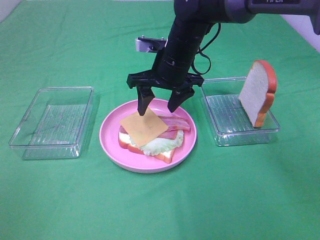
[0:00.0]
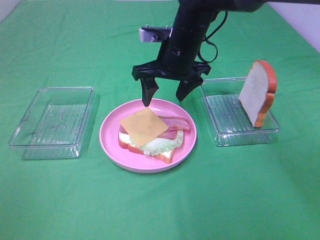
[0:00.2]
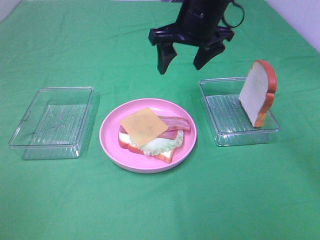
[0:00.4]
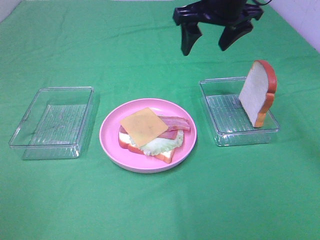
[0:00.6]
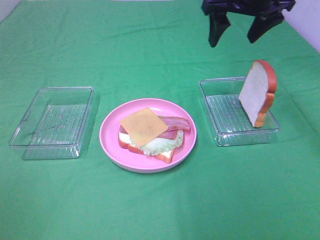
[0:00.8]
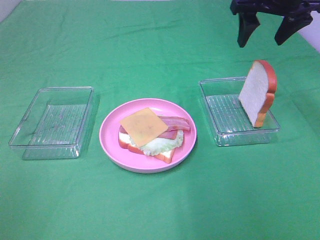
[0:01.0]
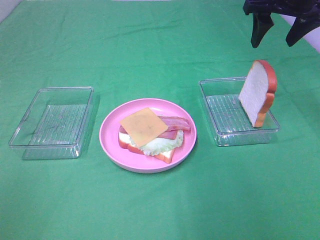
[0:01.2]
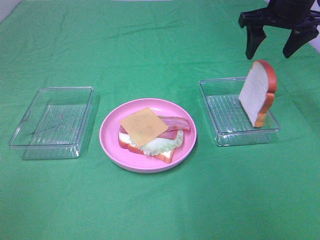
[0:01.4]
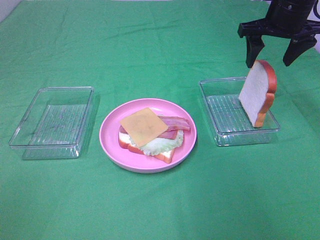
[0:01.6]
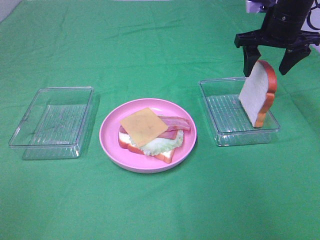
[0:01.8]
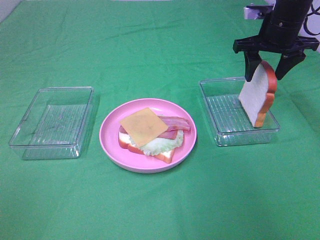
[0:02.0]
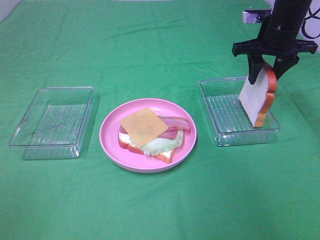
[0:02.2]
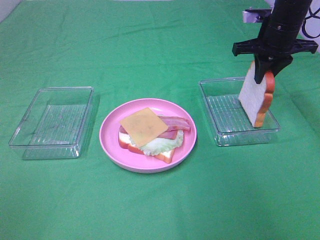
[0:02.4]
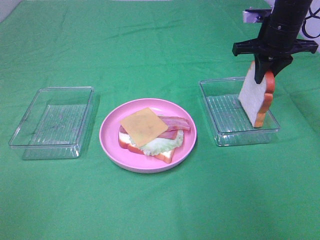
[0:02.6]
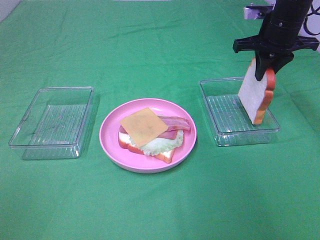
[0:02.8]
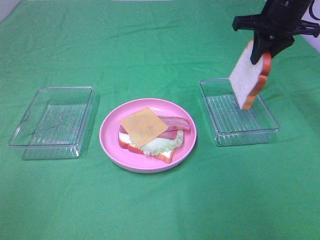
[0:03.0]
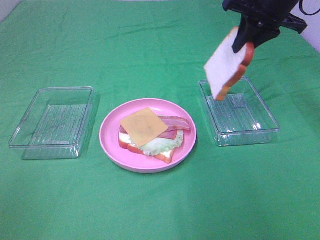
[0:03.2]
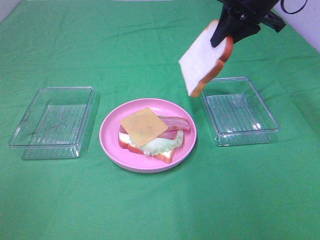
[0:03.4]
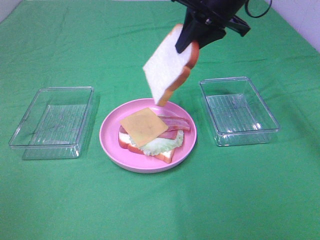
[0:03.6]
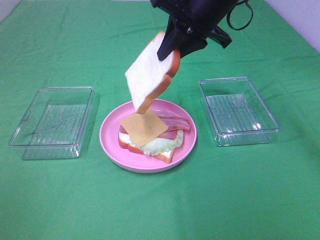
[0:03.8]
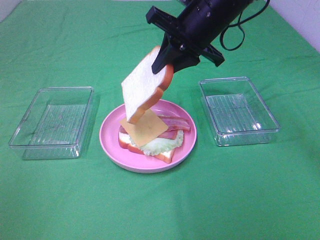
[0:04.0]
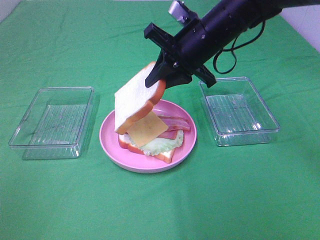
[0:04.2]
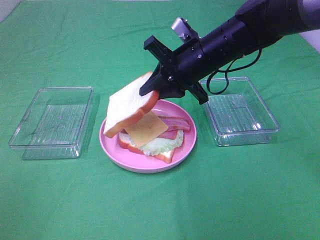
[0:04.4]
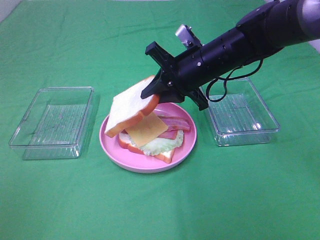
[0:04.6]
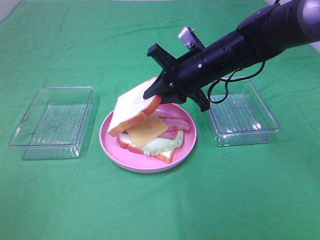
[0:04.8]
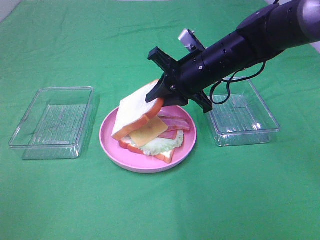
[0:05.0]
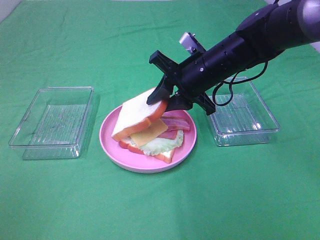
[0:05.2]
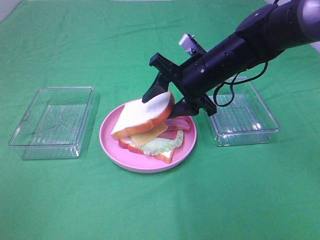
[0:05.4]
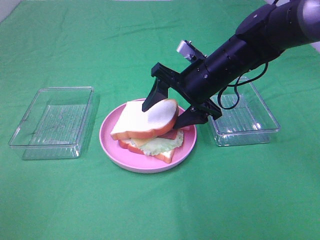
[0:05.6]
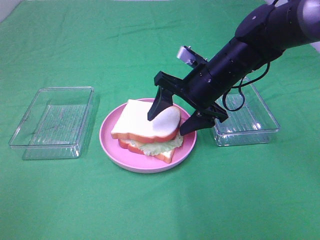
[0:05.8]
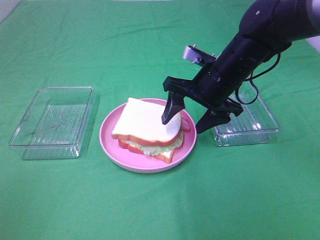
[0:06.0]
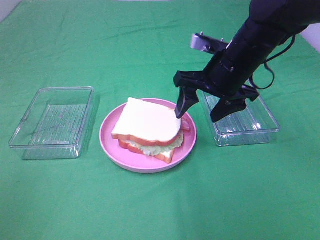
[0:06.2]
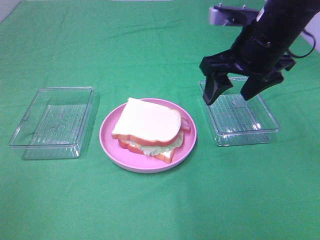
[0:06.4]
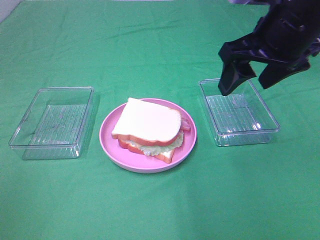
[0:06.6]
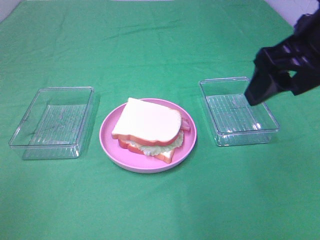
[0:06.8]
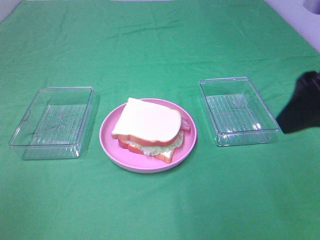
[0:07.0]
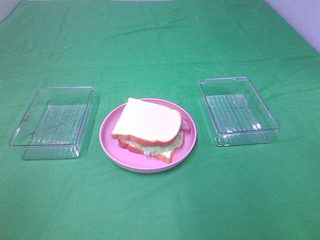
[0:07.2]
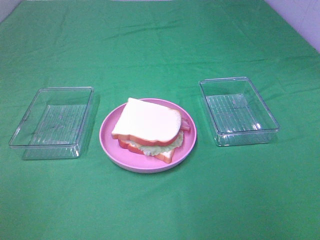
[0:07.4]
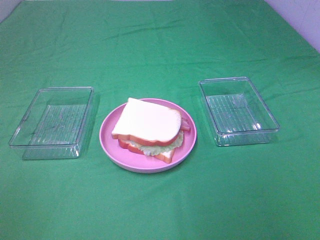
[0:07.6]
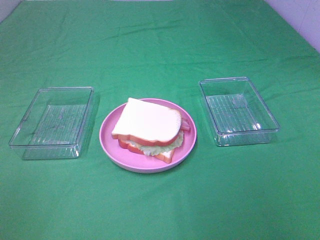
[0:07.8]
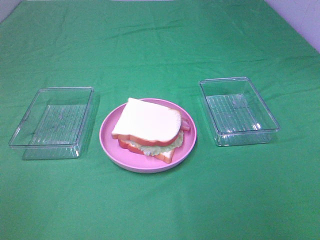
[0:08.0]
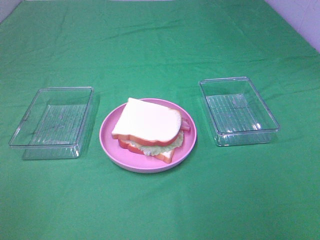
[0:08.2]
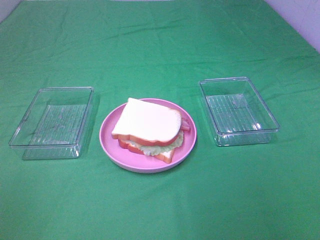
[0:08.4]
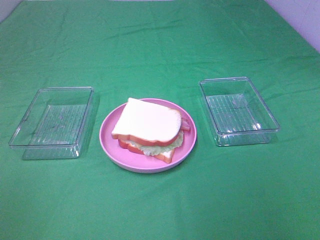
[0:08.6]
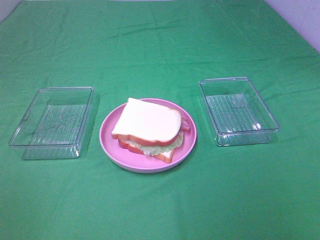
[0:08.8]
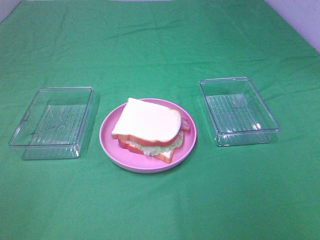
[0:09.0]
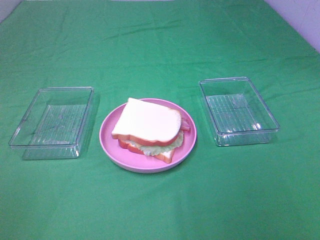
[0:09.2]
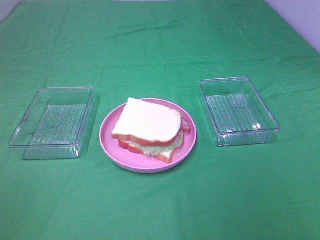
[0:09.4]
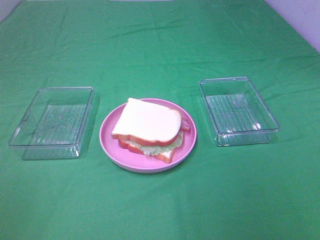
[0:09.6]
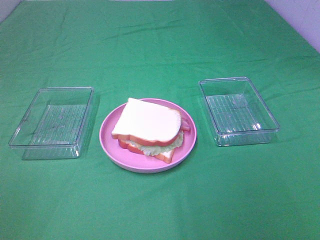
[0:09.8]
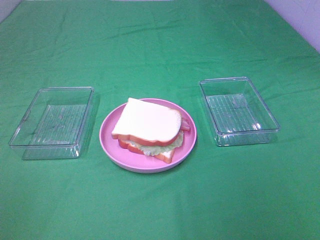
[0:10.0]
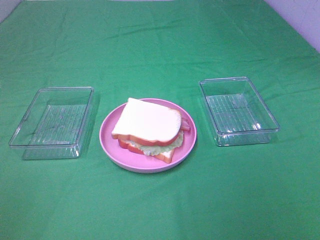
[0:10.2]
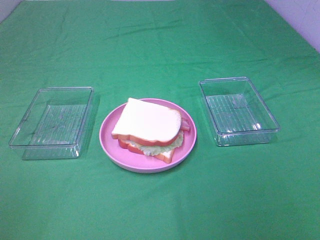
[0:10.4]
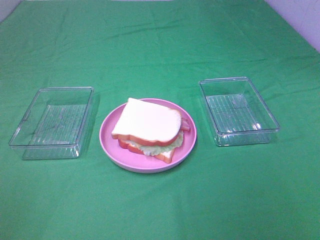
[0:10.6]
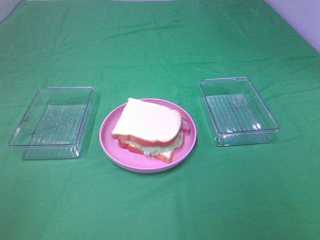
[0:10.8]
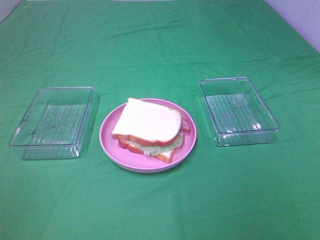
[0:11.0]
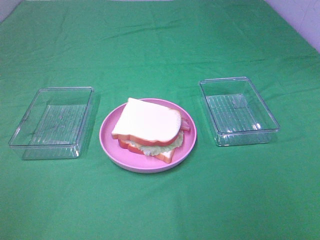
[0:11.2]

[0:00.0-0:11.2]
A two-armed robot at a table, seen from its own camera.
Task of the whole recording: Make sandwiches.
Step, 0:00.2 to 0:03.0: Right hand:grab the bread slice.
Step, 0:03.2 to 0:06.0: Right hand:place the bread slice on the cheese slice.
0:00.0 to 0:01.6: The right gripper is displaced to the right and upward by some 20 cm.
0:01.6 to 0:03.2: The right gripper closes up.
0:03.2 to 0:04.8: The right gripper is displaced downward, to the left and backward by roughly 15 cm.
0:04.8 to 0:06.4: The right gripper moves upward, to the right and backward, about 10 cm, and opens its fingers.
0:06.4 to 0:08.0: The right gripper shifts some 35 cm backward and to the right.

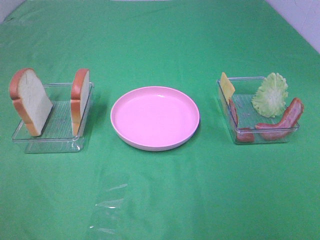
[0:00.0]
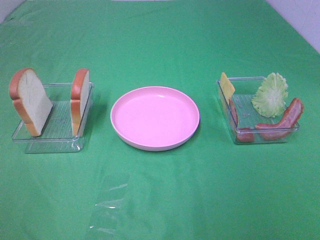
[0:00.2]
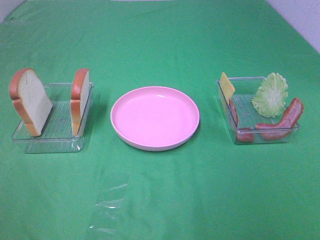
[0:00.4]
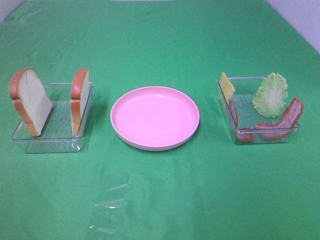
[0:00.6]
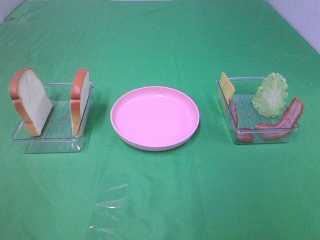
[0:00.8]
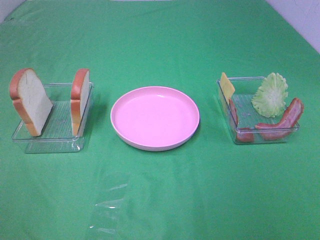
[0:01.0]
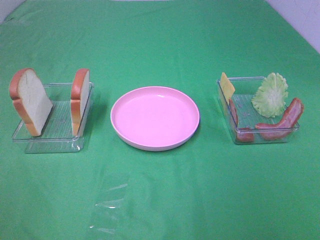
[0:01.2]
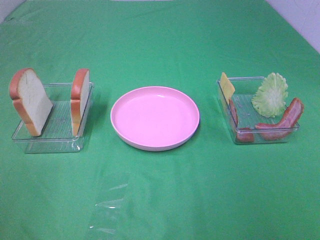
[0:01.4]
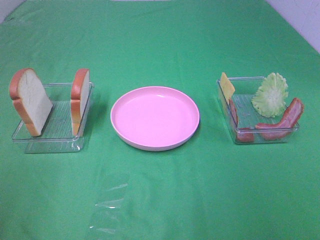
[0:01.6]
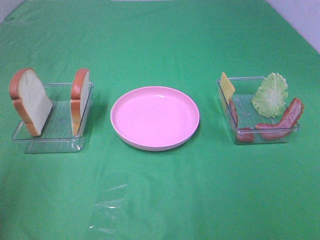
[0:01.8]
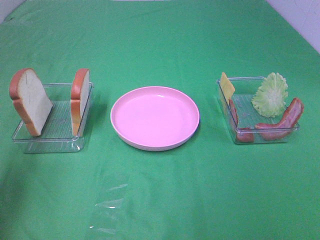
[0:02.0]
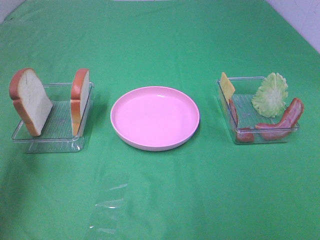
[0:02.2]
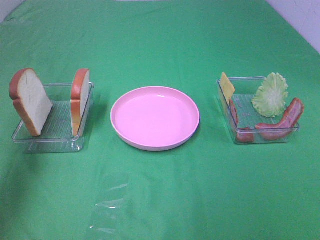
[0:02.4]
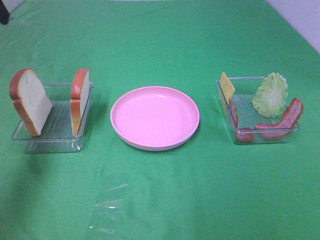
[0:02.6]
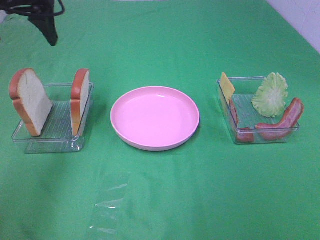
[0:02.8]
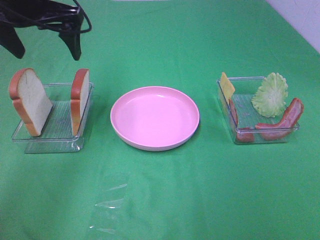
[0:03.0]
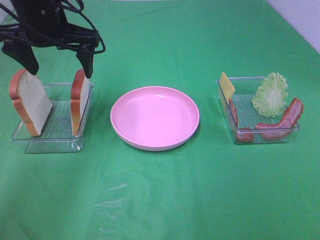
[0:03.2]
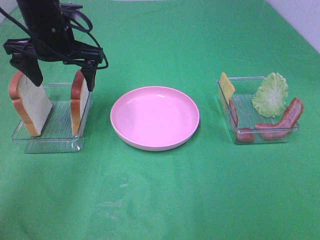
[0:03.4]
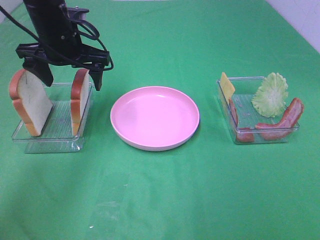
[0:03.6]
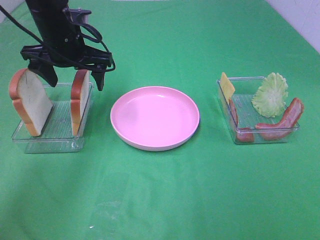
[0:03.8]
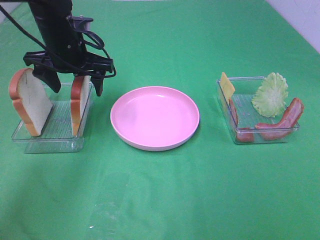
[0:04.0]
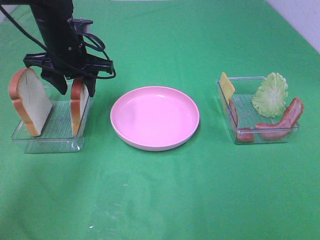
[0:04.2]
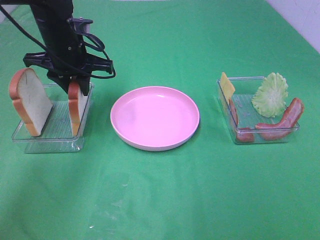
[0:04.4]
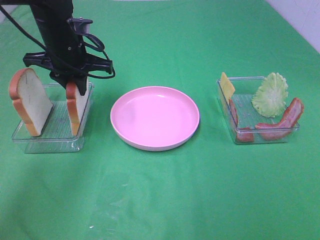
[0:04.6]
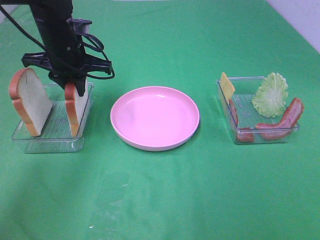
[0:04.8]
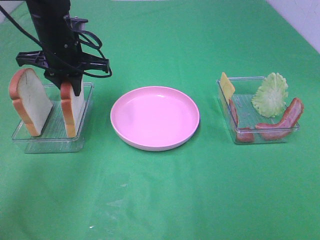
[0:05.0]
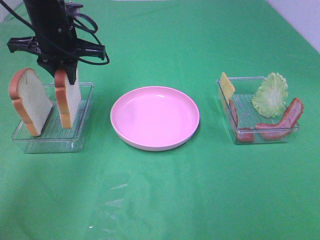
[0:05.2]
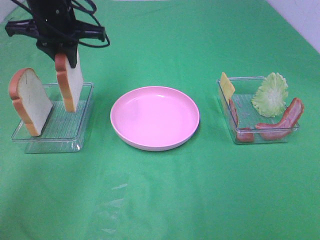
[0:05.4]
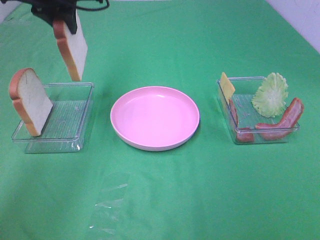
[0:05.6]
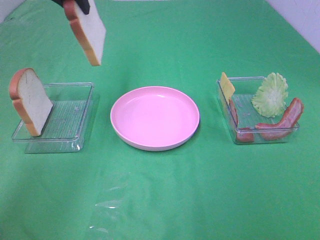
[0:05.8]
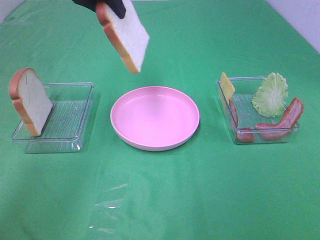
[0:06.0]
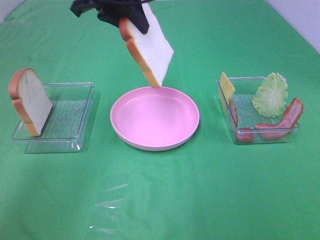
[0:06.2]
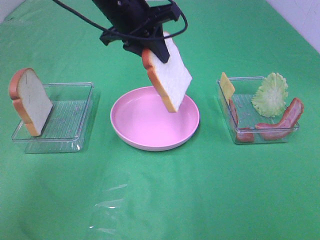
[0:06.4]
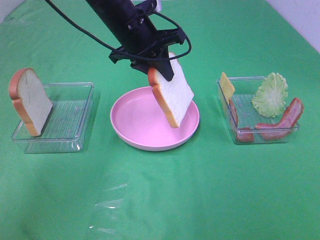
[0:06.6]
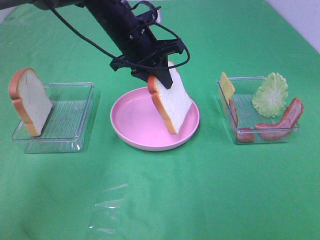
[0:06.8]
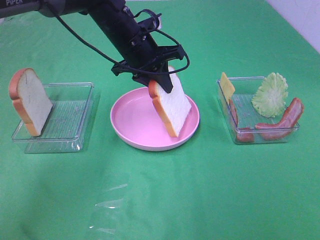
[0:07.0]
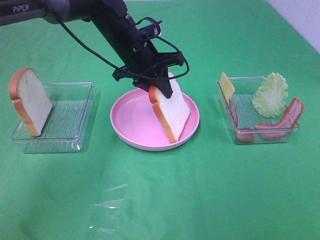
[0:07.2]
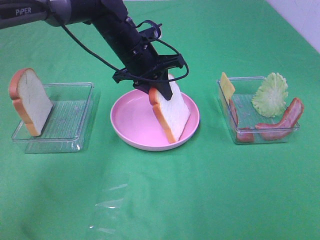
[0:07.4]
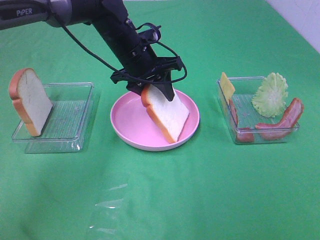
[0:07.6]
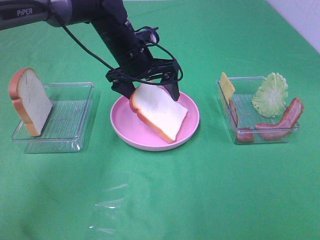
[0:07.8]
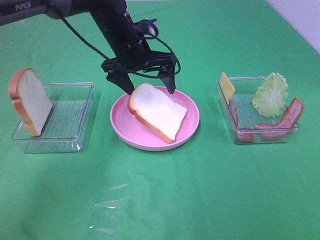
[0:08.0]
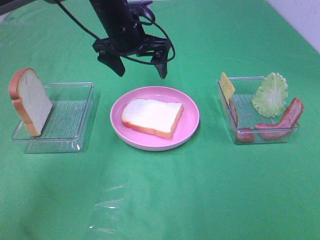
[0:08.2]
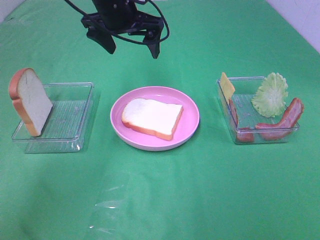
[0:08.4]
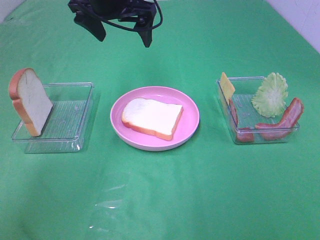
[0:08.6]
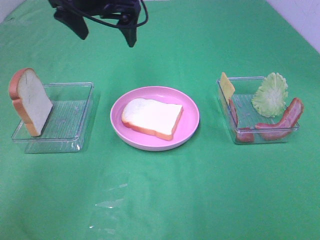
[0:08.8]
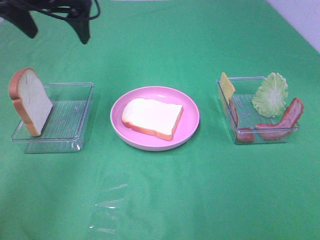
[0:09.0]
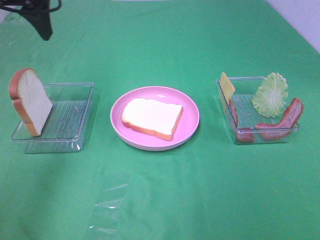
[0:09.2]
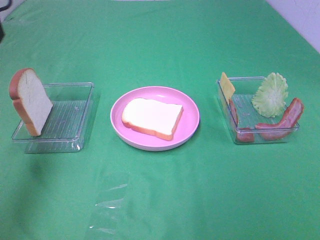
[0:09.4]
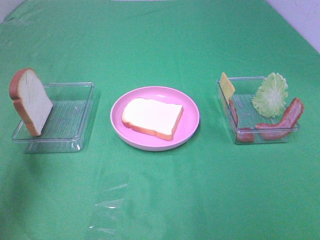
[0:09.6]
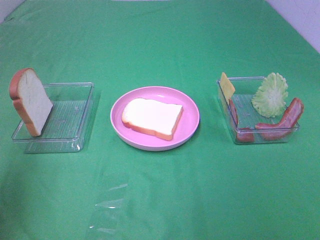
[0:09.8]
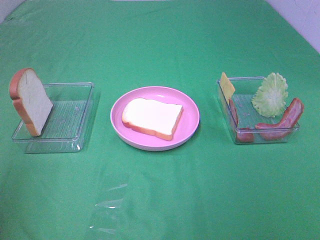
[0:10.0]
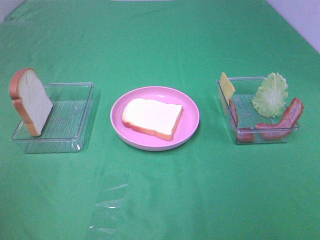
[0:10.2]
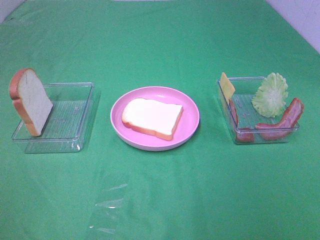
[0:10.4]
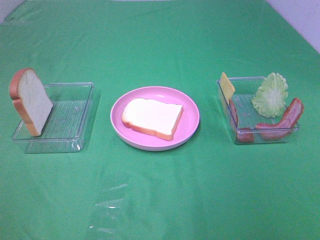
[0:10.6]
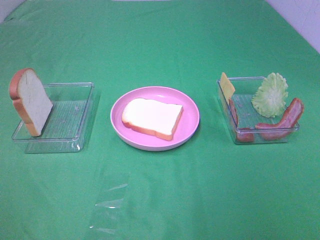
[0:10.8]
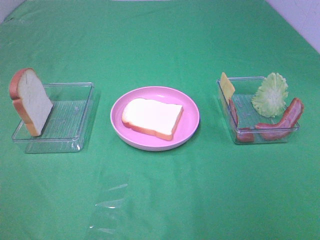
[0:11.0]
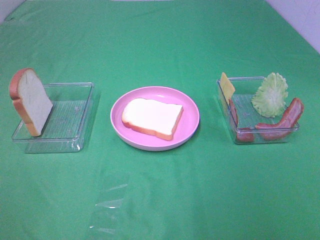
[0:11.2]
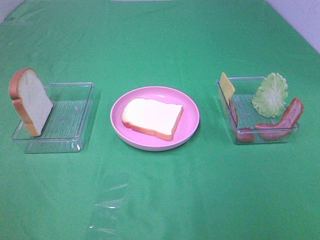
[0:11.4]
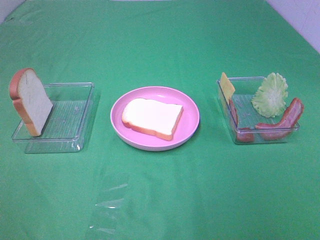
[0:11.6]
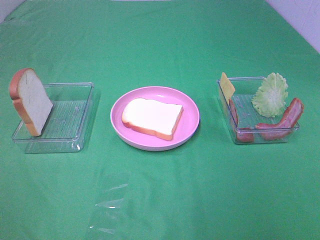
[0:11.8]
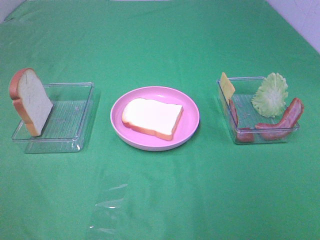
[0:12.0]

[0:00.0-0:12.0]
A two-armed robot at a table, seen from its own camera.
Task of the whole recording: Make sandwiches.
Step, 0:00.0 to 0:04.4: Left hand:grab the bread slice.
Step, 0:04.6 to 0:08.0: Left hand:place the bread slice on the plate.
0:01.6 to 0:03.0: The left gripper moves forward and to the right, some 35 cm.
0:03.0 to 0:04.4: The left gripper is displaced downward by approximately 10 cm, and closes.
0:04.4 to 0:06.0: The left gripper travels upward by approximately 15 cm.
0:06.0 to 0:07.6: The left gripper travels downward and to the right by about 20 cm, and opens up.
0:07.6 to 0:09.0: The left gripper shifts about 20 cm upward and to the left, and opens its fingers.
0:09.0 to 0:10.4: The left gripper goes some 40 cm backward.
